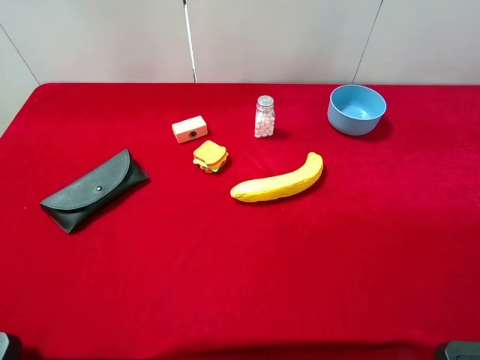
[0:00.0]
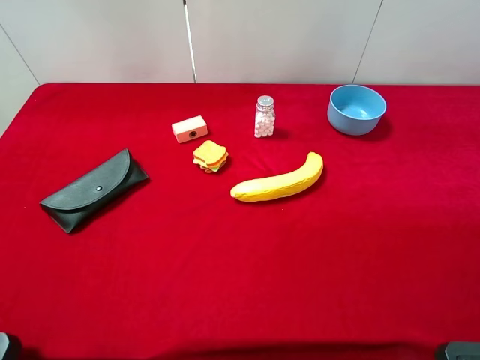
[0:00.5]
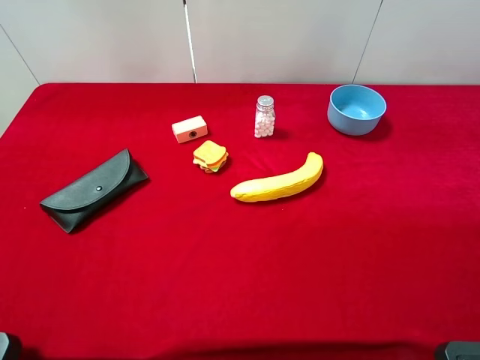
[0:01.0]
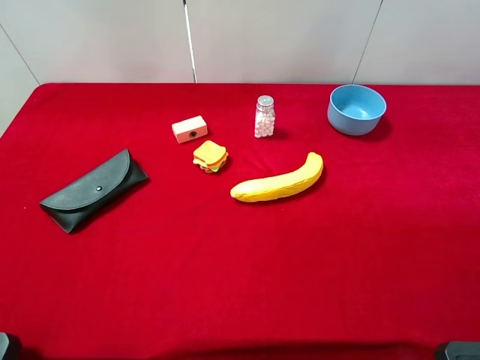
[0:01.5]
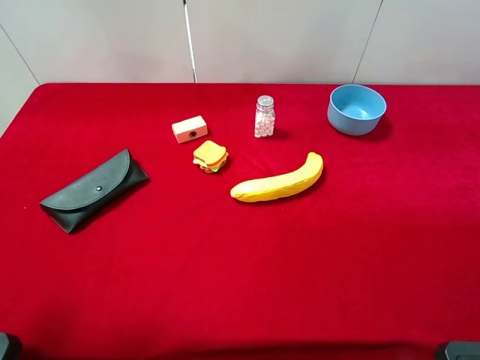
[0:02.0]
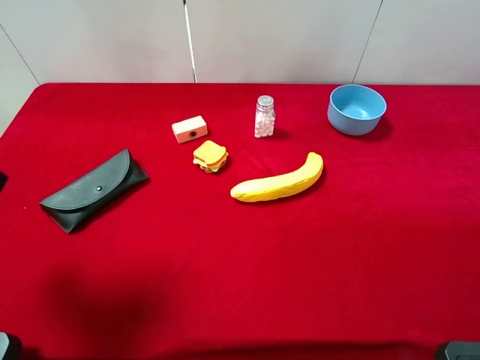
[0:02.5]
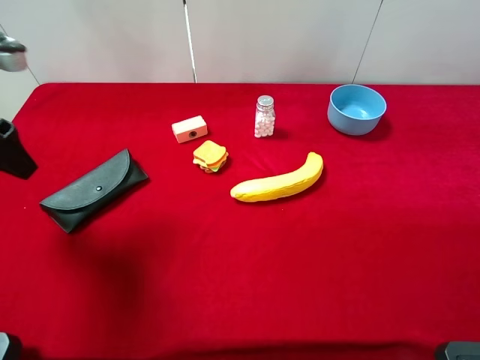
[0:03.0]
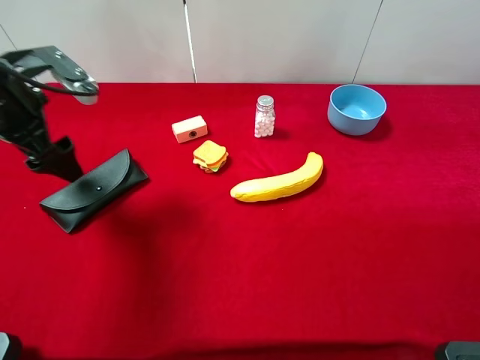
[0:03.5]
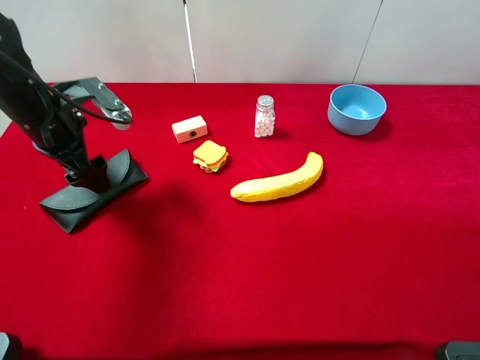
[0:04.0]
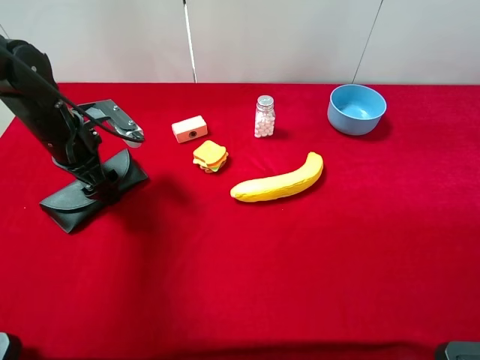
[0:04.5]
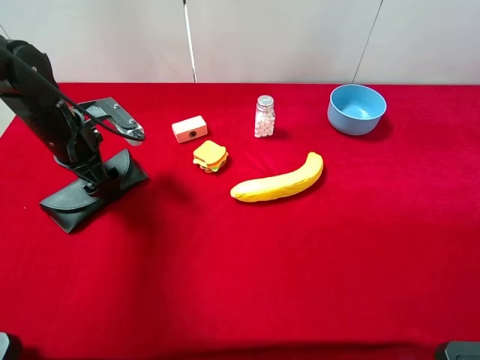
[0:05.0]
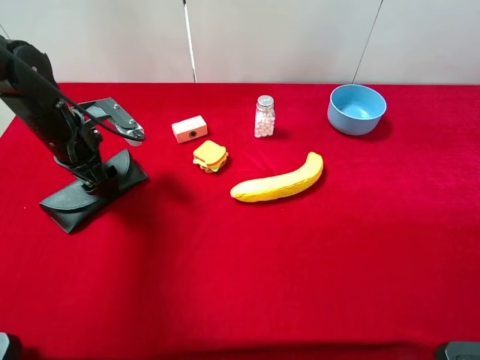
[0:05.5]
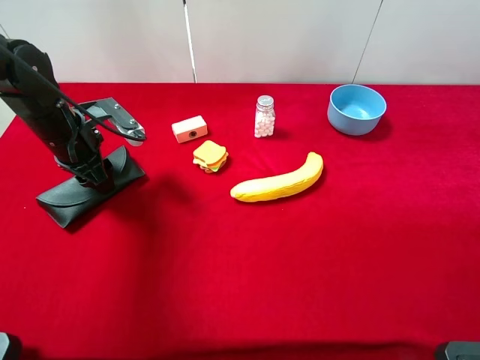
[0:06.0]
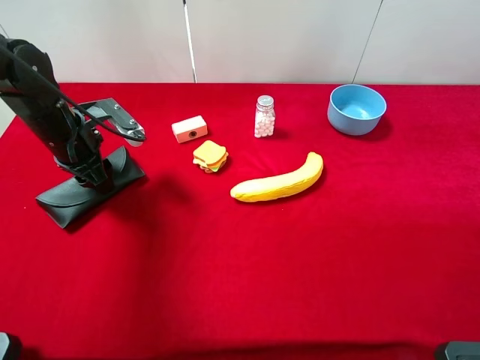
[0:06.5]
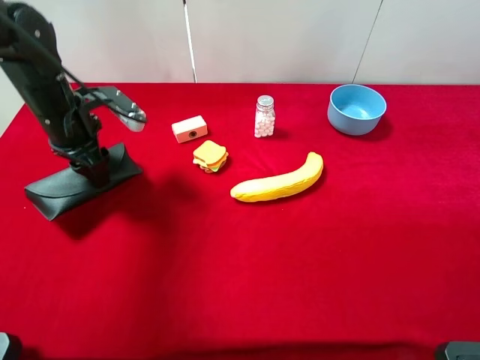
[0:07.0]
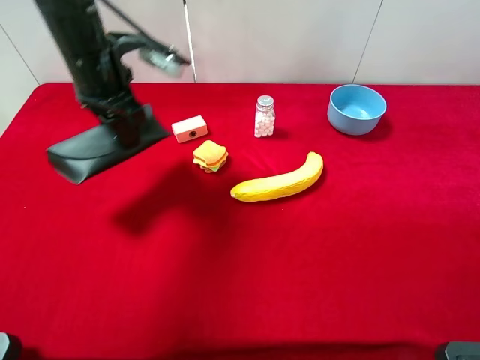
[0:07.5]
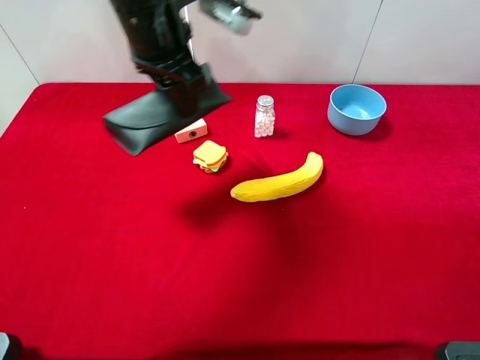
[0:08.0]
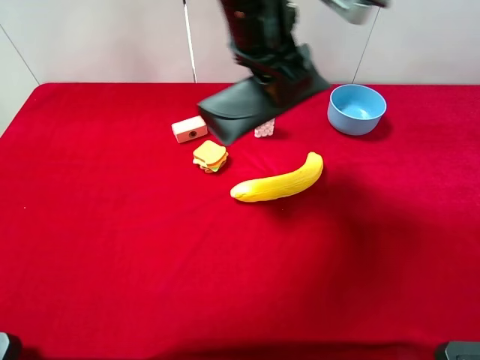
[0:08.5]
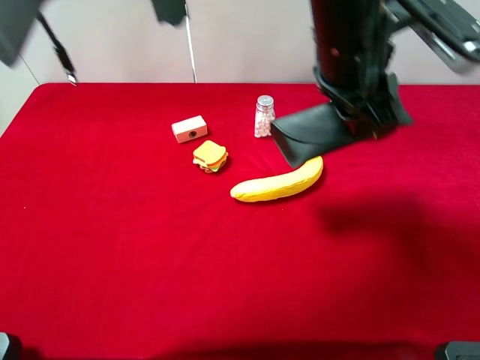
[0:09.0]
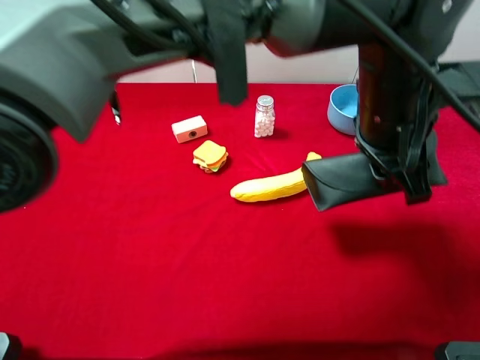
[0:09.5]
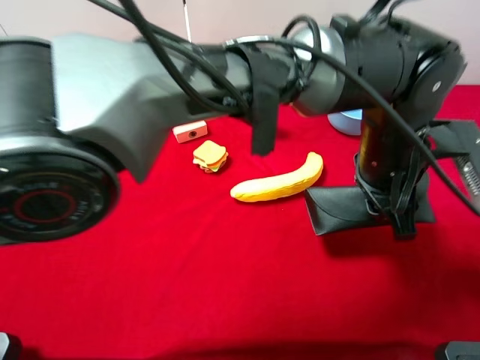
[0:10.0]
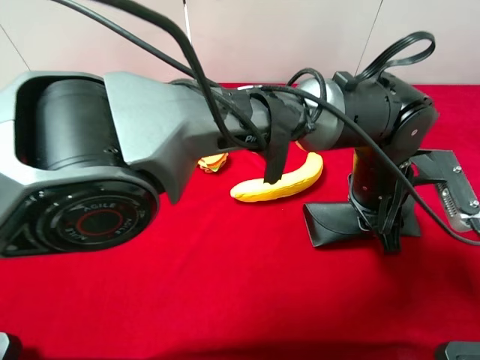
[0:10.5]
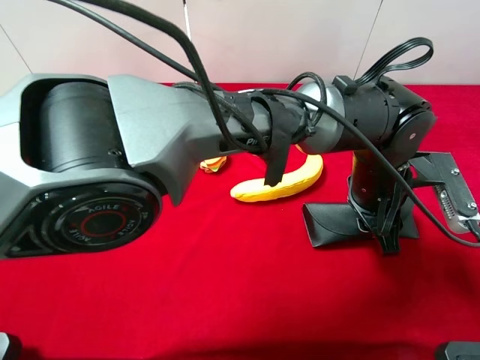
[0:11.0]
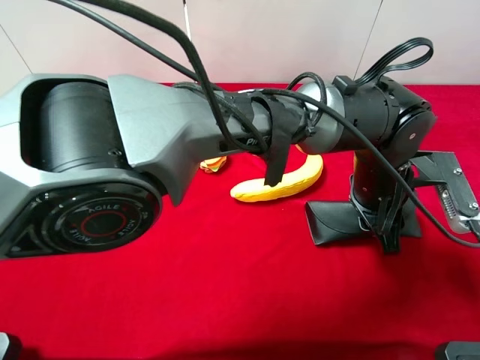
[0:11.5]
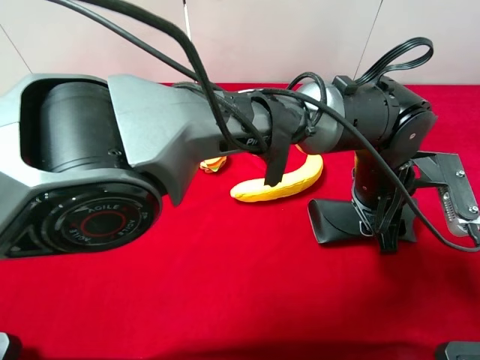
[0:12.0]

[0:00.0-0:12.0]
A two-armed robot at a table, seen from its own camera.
Task of the whole recording: the gripper move the object.
Step, 0:00.0 to 0:06.0: Grasp the eyeglass case with the left gripper.
0:02.0 to 0:04.0: The left gripper moves forward and downward, some 25 cm.
0:04.0 to 0:06.0: The left gripper closes up.
0:06.0 to 0:08.0: The left gripper heads to the right and upward, covering approximately 20 cm.
0:08.0 to 0:10.0: The left gripper heads to the right and backward, covering about 30 cm.
0:10.0 to 0:12.0: The left gripper shifts some 5 cm downward.

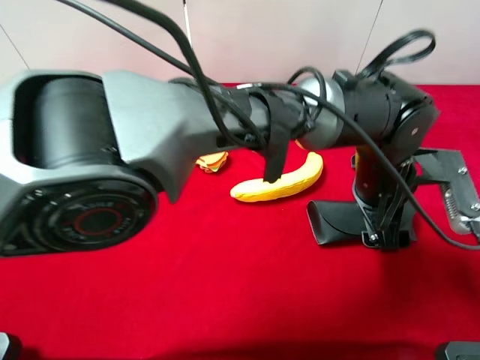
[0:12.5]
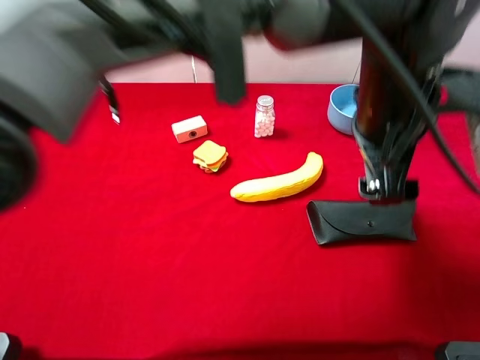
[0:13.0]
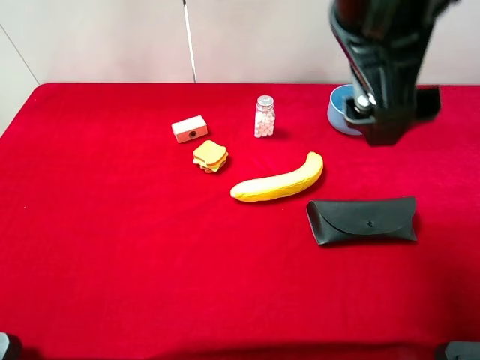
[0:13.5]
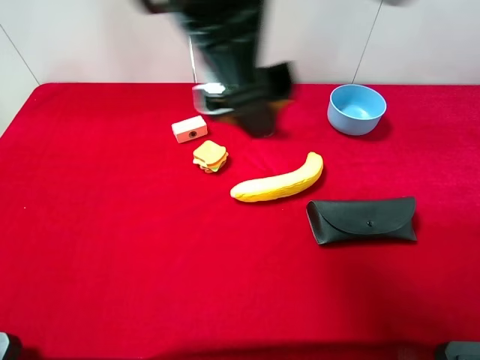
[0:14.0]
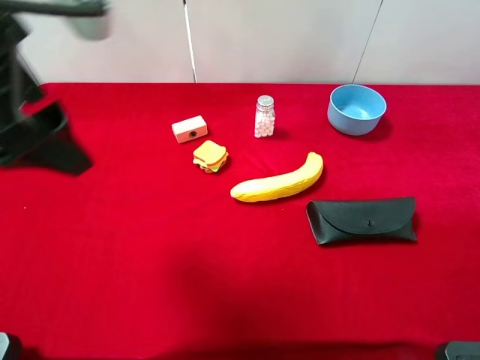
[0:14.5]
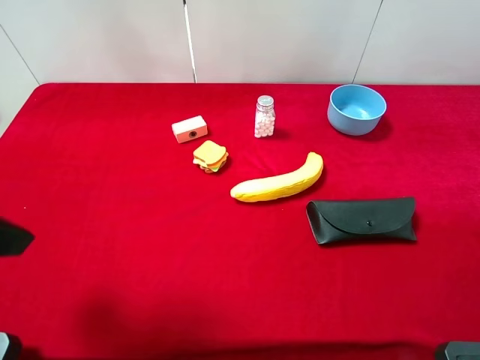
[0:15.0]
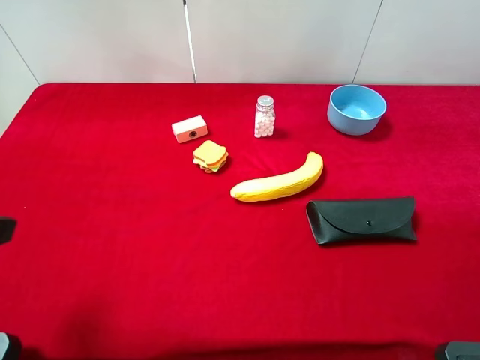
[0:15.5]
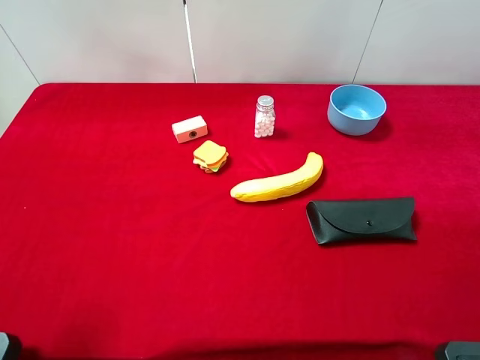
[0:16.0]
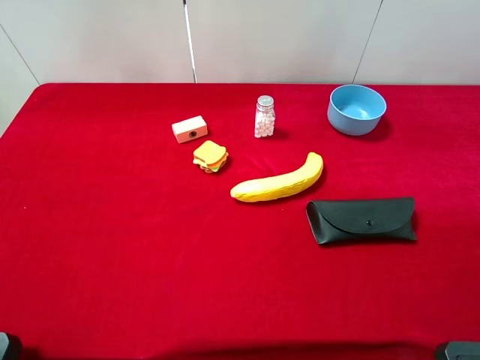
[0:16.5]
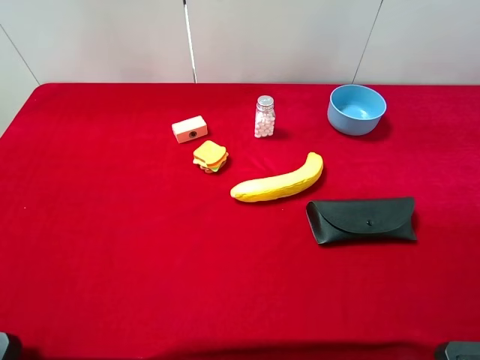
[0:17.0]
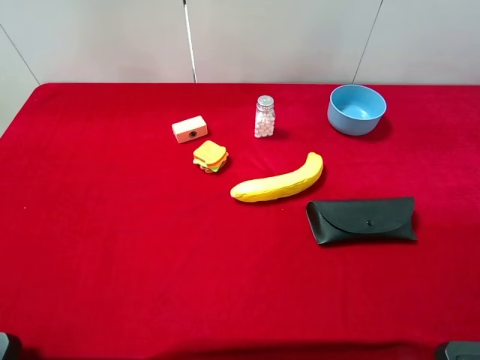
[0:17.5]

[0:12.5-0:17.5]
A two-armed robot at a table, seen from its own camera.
Task of the whole recording: the gripper move the object.
0:12.5 to 0:15.0: The left gripper travels to the left by approximately 40 cm.
0:15.0 to 0:17.5: The left gripper travels backward and to the left by some 10 cm.
